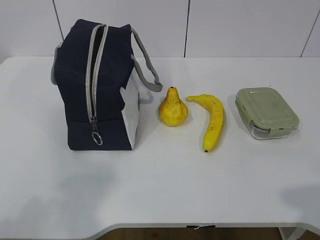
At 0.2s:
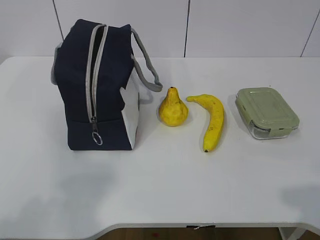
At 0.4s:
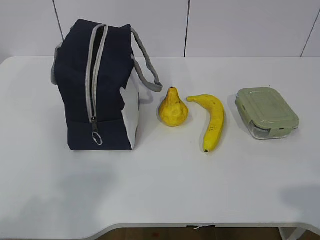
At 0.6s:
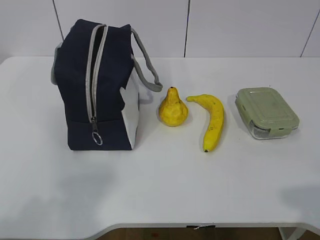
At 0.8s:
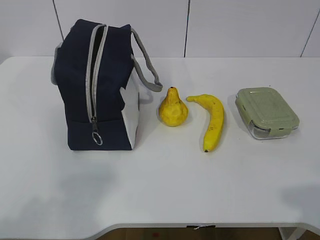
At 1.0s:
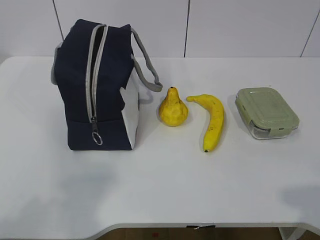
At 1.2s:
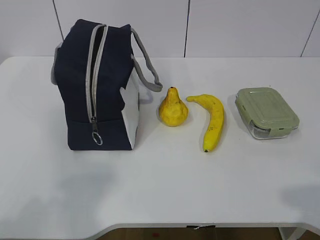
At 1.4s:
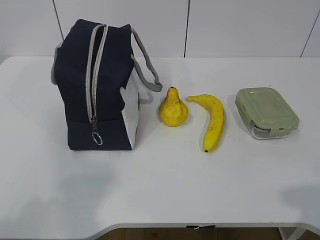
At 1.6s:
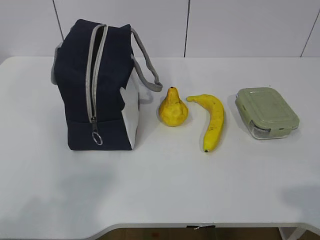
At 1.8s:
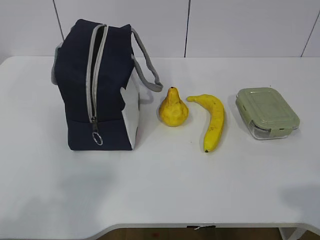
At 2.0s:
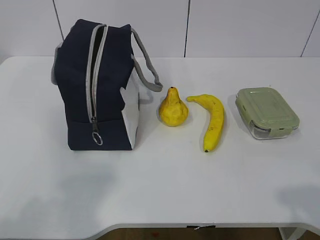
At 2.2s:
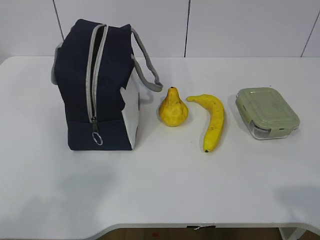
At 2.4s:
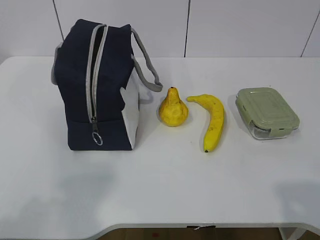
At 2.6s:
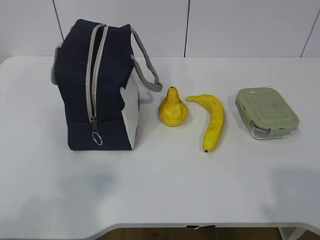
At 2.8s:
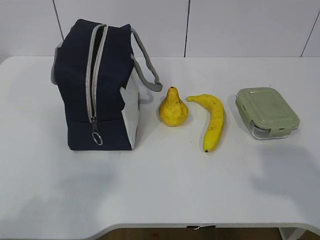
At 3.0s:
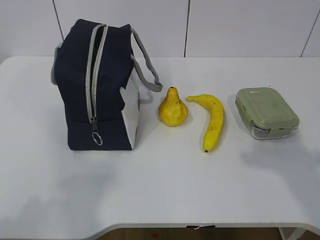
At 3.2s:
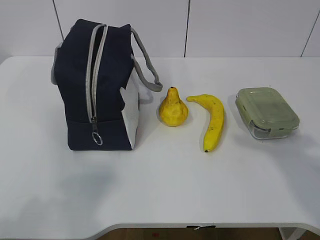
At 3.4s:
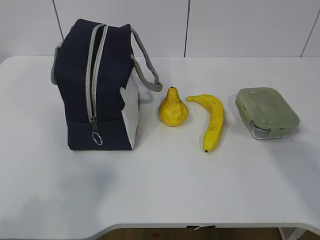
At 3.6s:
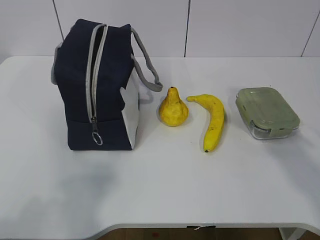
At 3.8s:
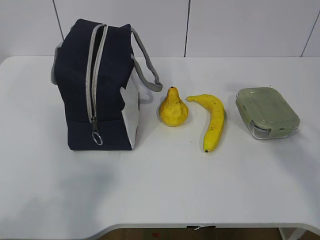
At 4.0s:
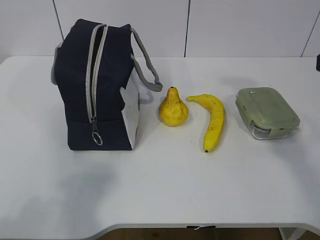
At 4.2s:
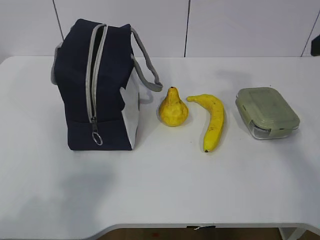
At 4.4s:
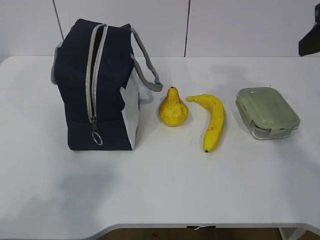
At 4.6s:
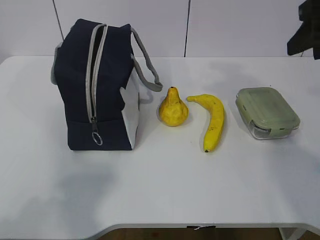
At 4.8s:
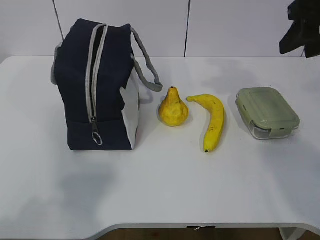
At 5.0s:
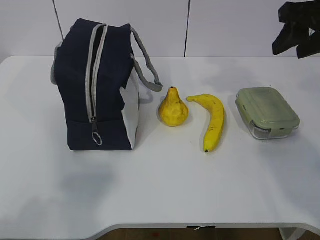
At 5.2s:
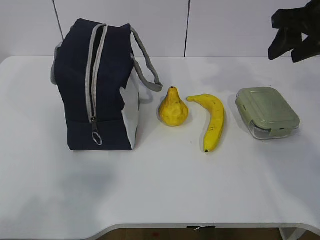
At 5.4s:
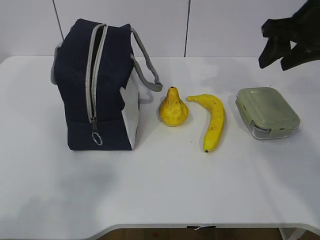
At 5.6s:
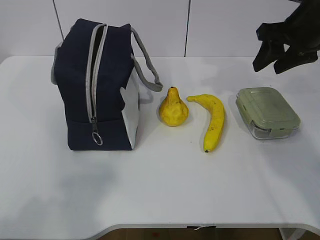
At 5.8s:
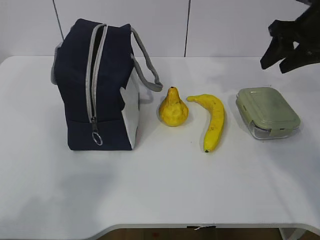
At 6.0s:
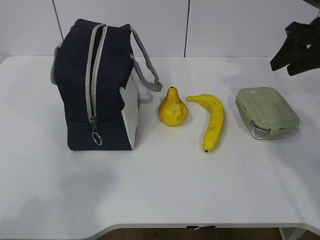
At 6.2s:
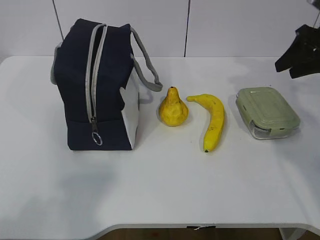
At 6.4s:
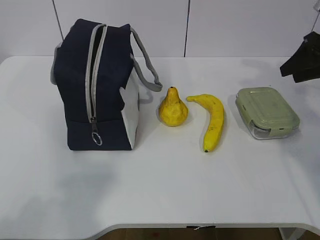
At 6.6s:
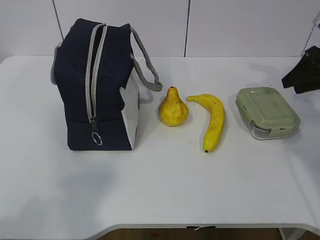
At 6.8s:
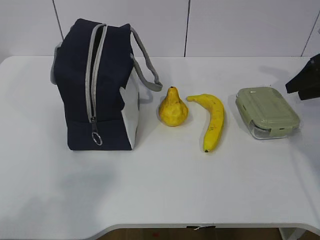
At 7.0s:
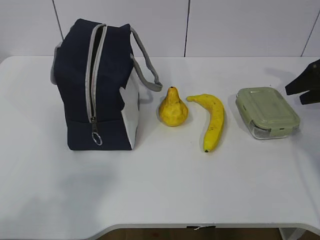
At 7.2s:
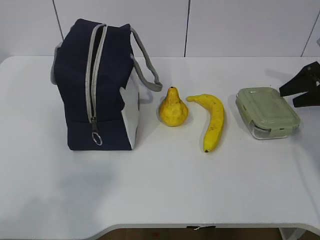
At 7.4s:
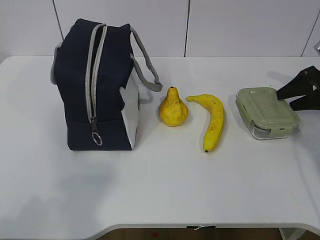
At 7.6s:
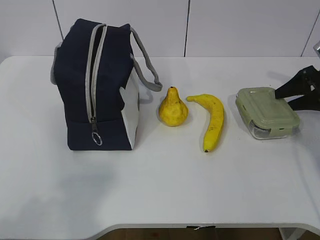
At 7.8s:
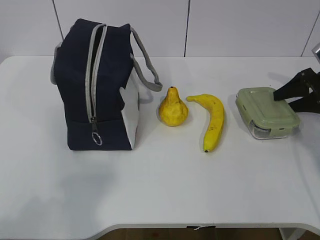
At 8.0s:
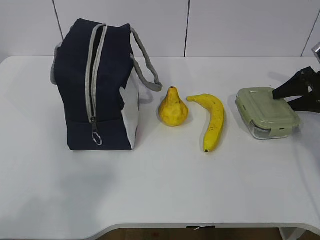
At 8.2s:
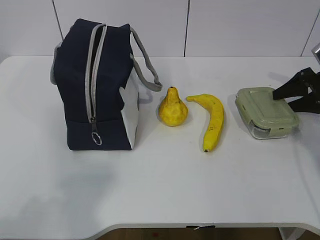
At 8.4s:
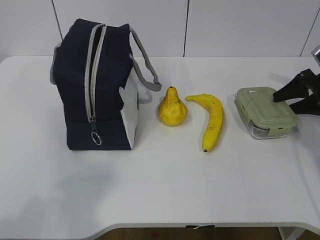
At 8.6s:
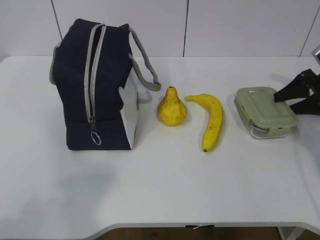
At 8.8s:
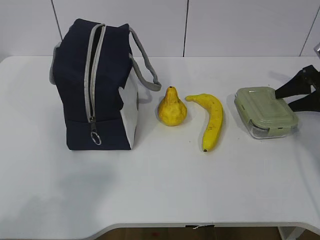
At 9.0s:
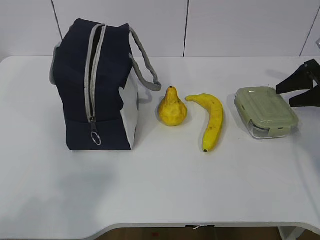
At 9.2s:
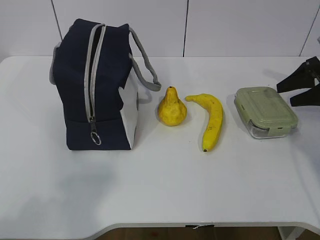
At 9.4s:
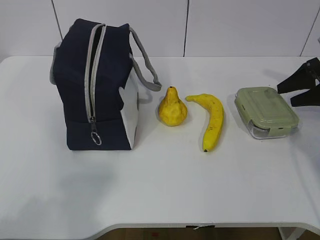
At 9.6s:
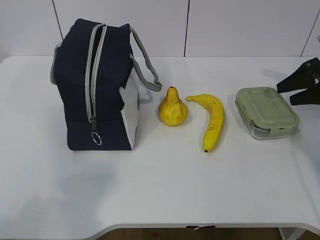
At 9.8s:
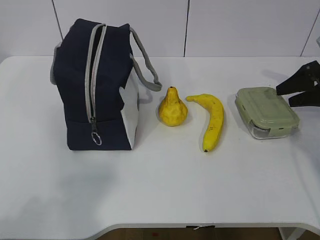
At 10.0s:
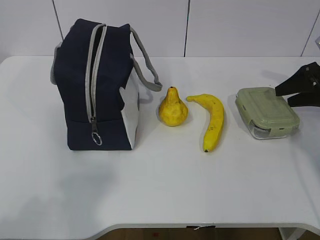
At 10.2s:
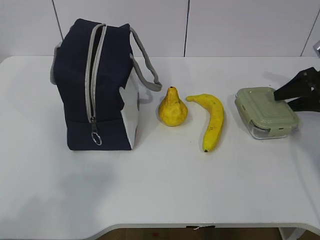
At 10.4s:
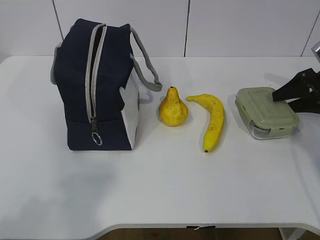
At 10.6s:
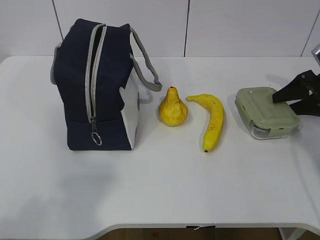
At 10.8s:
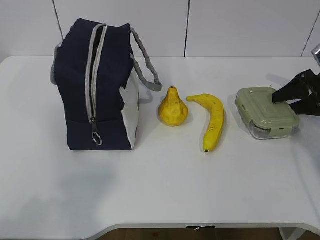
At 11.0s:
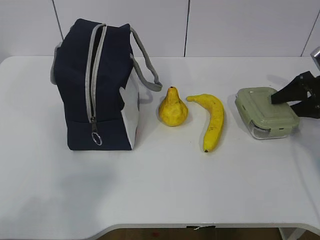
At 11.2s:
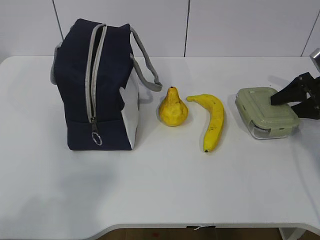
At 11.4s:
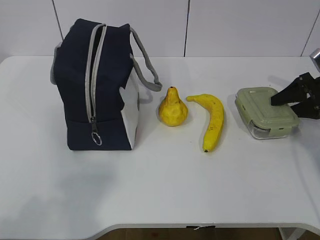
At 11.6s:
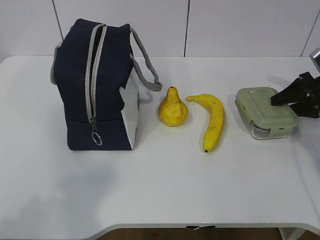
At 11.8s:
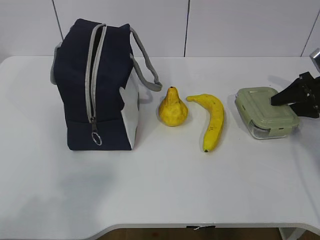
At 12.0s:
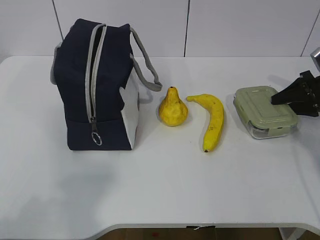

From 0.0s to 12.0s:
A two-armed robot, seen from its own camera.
Step, from 0.0s to 11.2s: Grab the lunch box with your right hand.
From 1.6s to 3.0s: The right gripper travels forward and upward by some 10 cm.
From 3.0s to 4.4s: The right gripper travels forward by approximately 20 cm.
From 4.4s to 6.0s: The right gripper is displaced forward, downward and to the right by approximately 15 cm.
From 6.0s to 7.6s: The right gripper is displaced downward and to the right by approximately 15 cm.
From 7.6s to 12.0s: There are only small adjustments of the grippers.

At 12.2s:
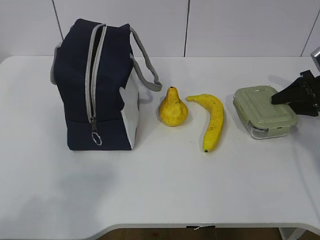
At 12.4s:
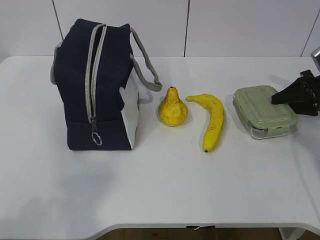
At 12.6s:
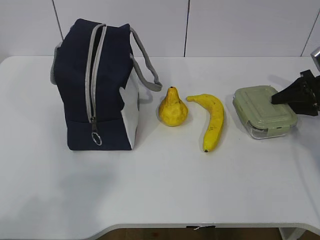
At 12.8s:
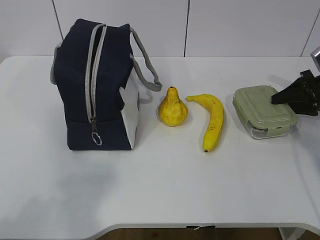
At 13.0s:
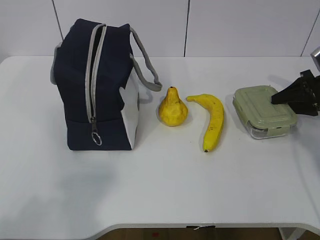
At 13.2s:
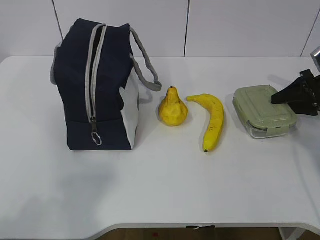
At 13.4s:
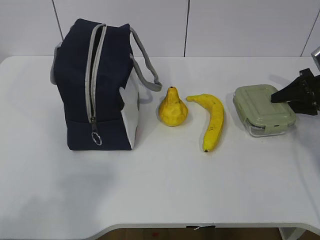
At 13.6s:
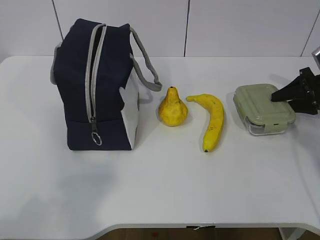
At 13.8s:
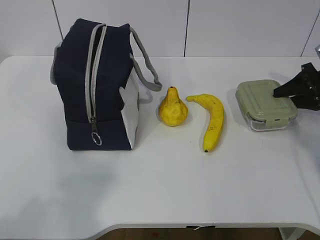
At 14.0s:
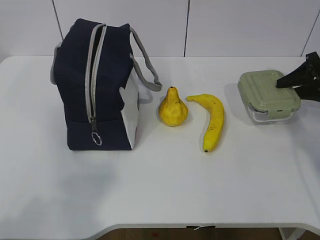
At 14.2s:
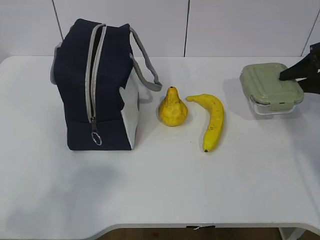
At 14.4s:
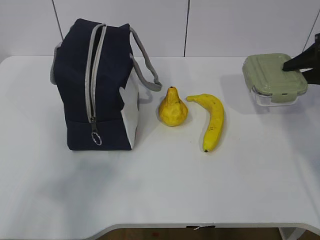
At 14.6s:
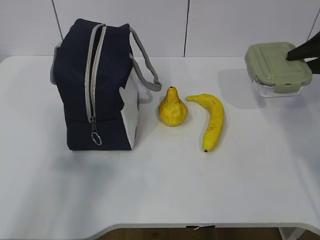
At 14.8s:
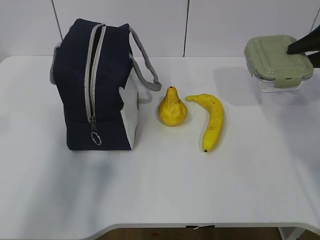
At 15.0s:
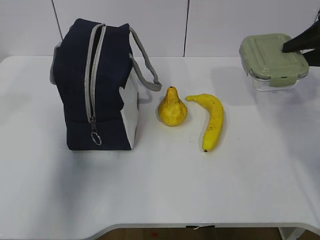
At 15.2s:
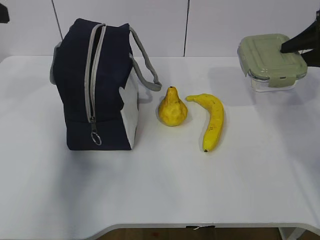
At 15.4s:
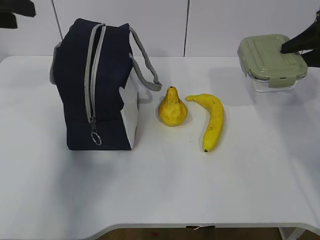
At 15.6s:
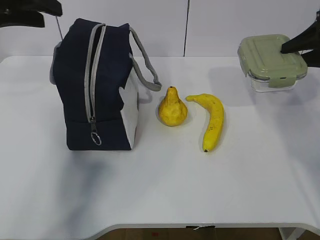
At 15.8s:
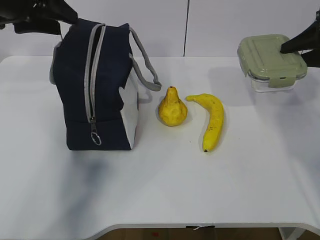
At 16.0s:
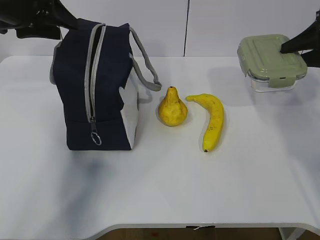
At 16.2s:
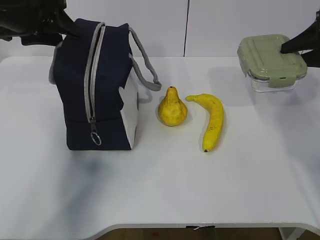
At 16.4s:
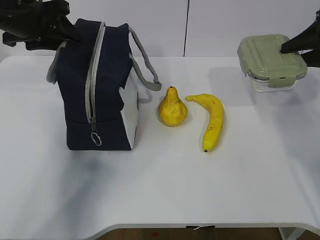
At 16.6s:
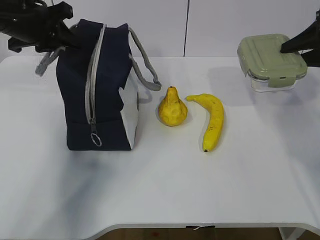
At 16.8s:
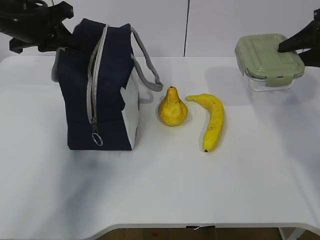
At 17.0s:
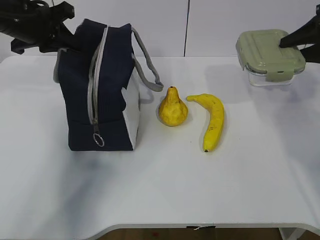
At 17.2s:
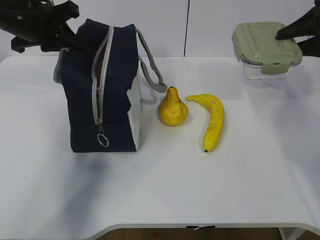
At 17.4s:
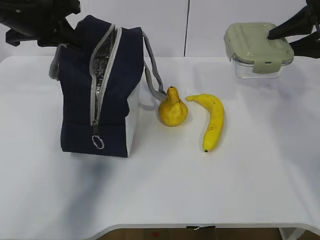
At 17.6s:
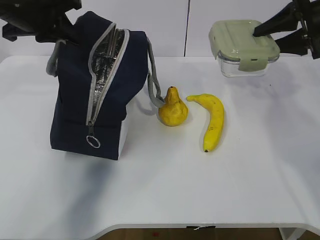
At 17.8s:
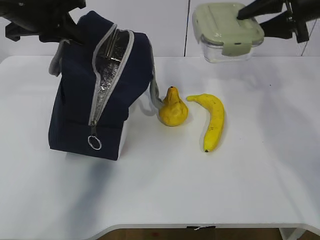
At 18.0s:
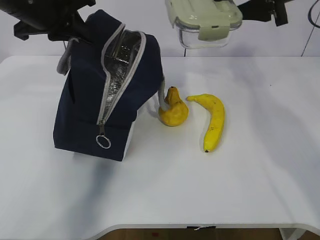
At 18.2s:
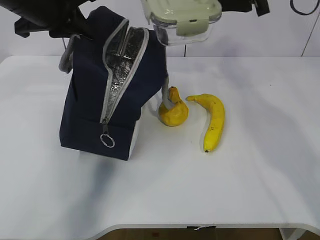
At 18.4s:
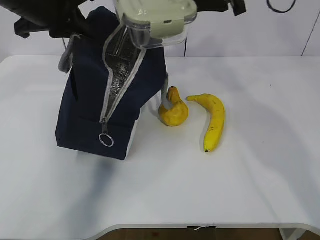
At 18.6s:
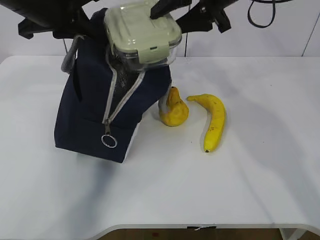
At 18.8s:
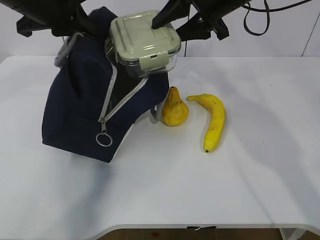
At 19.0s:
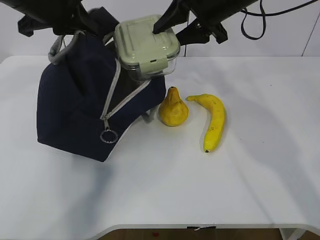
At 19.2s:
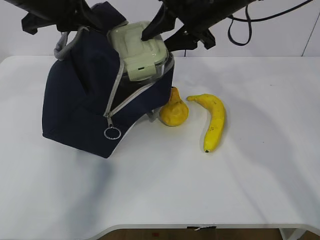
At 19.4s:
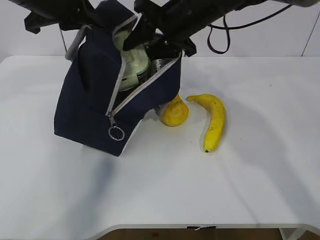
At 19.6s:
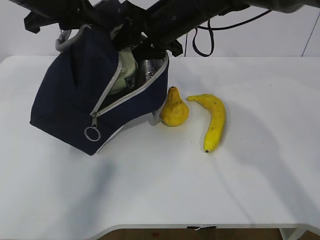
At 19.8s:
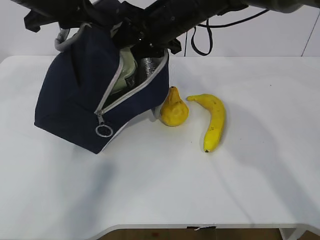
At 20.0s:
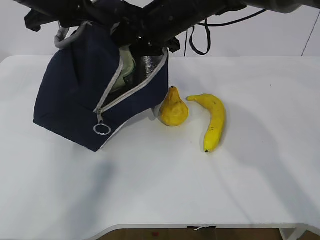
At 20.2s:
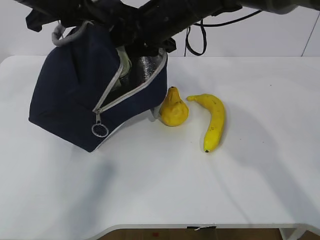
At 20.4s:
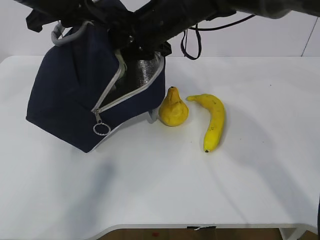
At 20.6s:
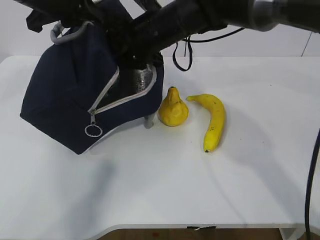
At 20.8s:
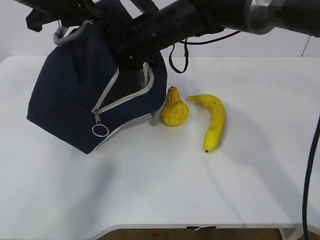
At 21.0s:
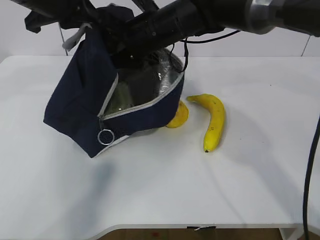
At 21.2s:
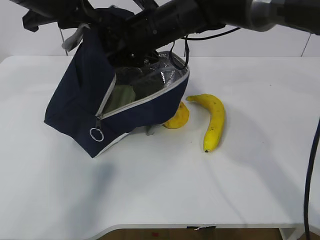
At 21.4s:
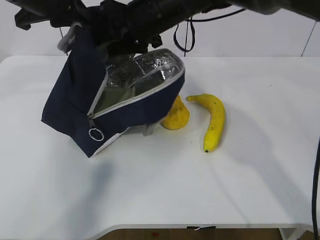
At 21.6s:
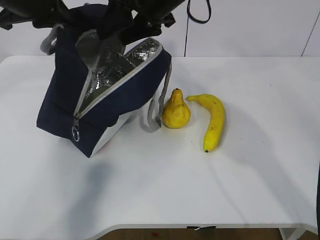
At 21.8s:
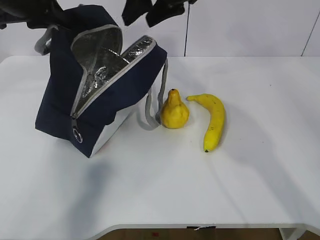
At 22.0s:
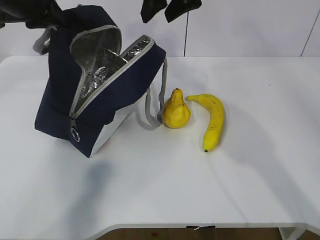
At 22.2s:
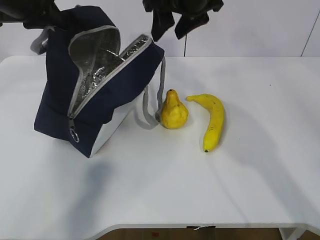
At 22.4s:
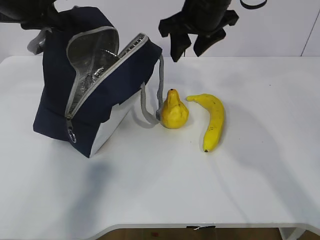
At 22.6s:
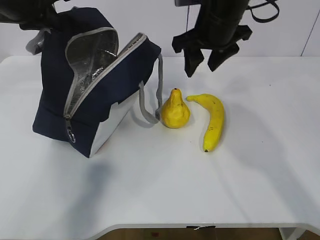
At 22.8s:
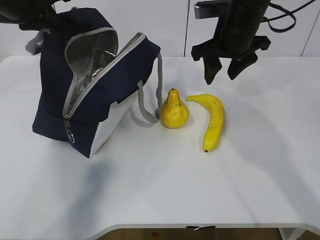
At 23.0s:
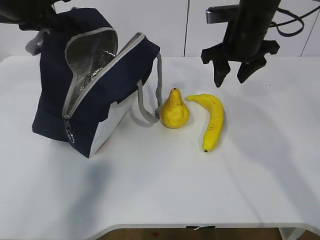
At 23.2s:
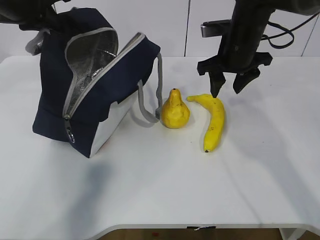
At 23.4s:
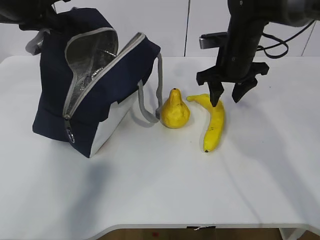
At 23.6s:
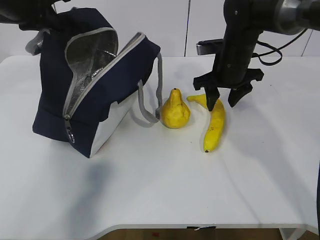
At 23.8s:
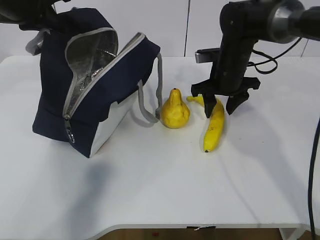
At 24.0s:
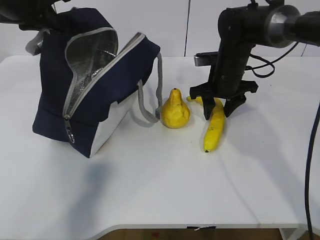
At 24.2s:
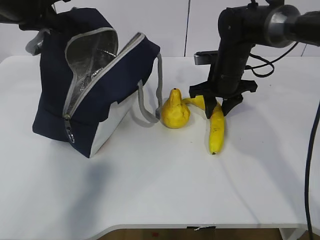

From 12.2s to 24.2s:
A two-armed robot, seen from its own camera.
Step, from 12.2s to 15.2s: Grab the lunch bag with your left hand.
Step, from 15.4s to 17.6s: Place it into the bag with your right hand.
Step, from 18.0s to 20.4s: Grab the banana with your right hand.
From 12.2s to 13.8s: Both grippers stay about where they are.
From 13.8s to 15.2s: The left gripper shifts approximately 25 cm forward. Meanwhile the right gripper travels upward by approximately 10 cm.
From 15.2s to 16.6s: The left gripper travels forward and downward by approximately 15 cm, and closes its fingers.
From 16.6s to 18.2s: The right gripper heads to the left and upward, covering roughly 20 cm. The left gripper heads to the right, covering some 5 cm.
From 18.2s to 19.8s: The right gripper goes some 15 cm to the left and downward.
From 19.8s to 21.2s: The grippers stay close to where they were, moving slightly.
From 21.2s to 22.6s: The right gripper goes approximately 10 cm to the right, while the left gripper moves to the left, about 5 cm.
From 22.6s to 24.2s: The right gripper is displaced downward by about 15 cm.
